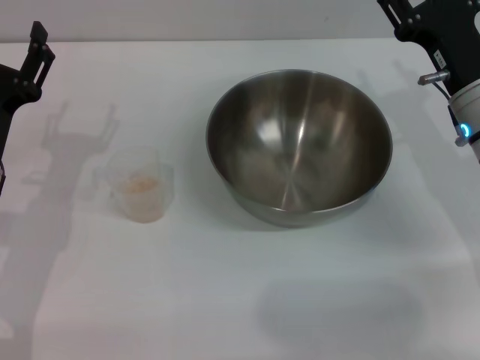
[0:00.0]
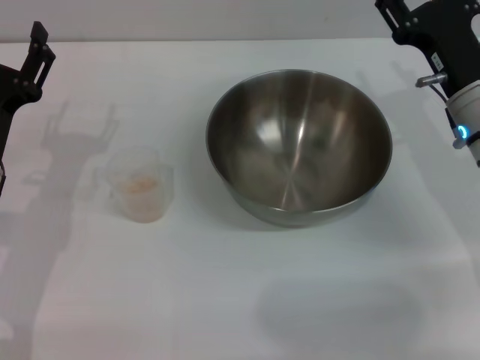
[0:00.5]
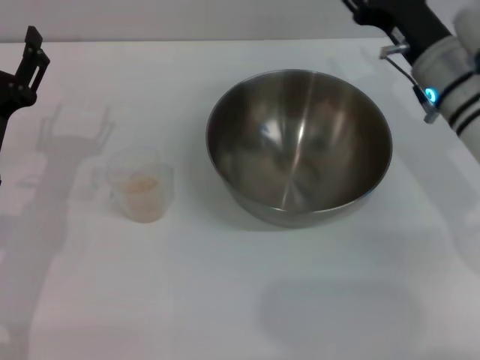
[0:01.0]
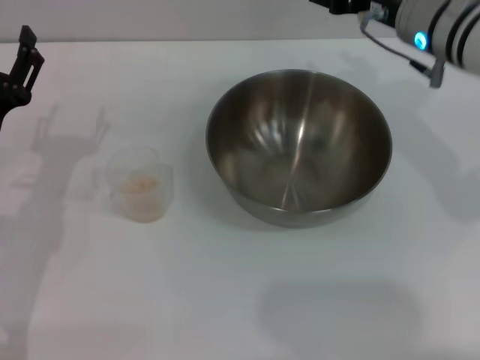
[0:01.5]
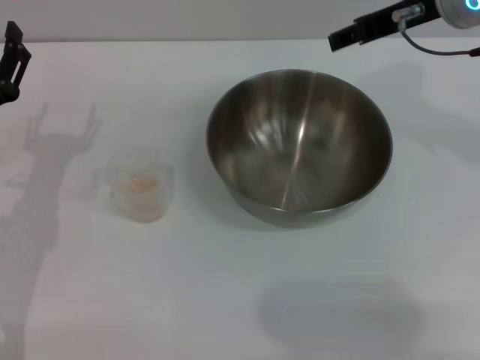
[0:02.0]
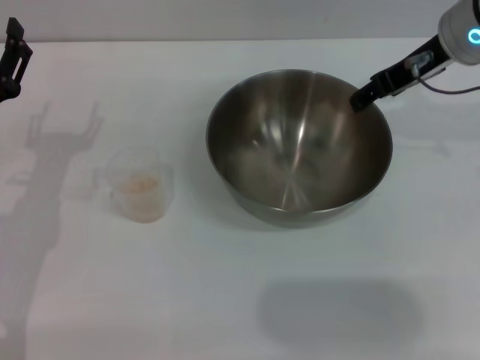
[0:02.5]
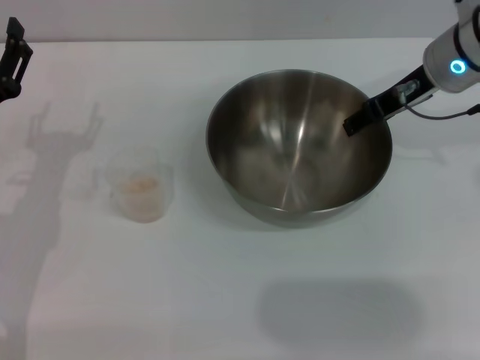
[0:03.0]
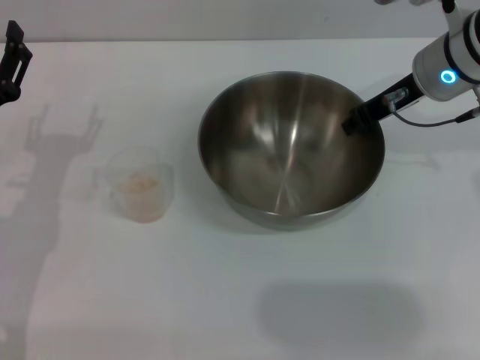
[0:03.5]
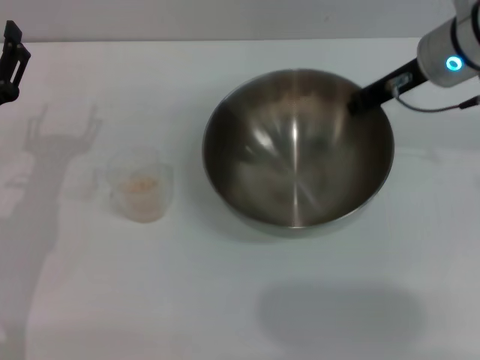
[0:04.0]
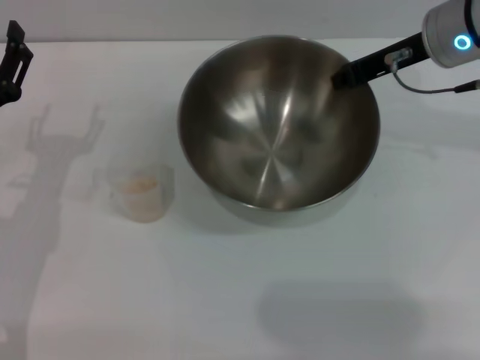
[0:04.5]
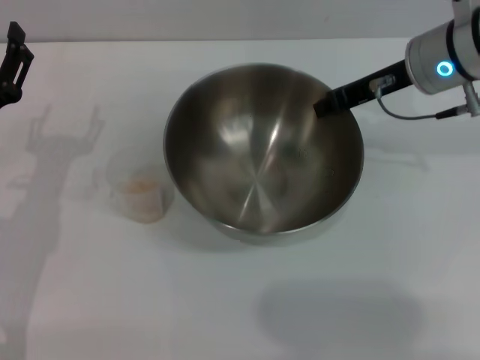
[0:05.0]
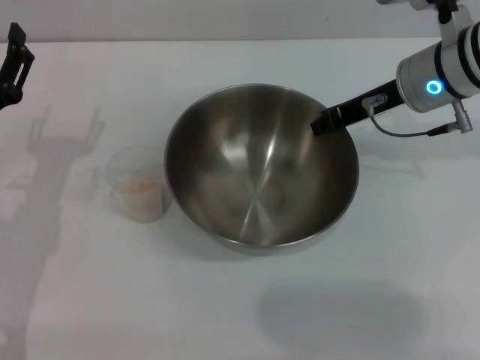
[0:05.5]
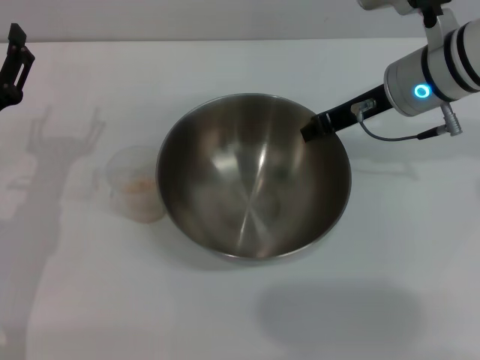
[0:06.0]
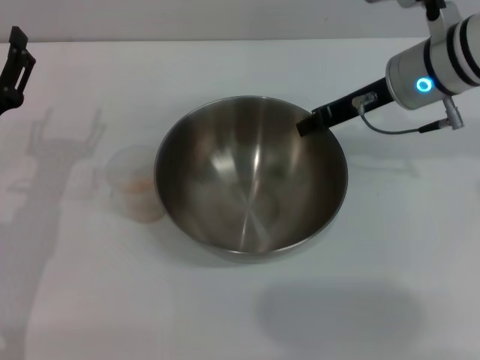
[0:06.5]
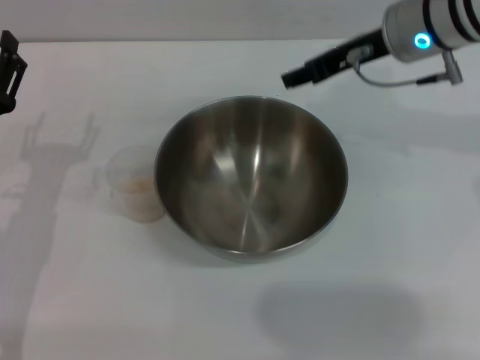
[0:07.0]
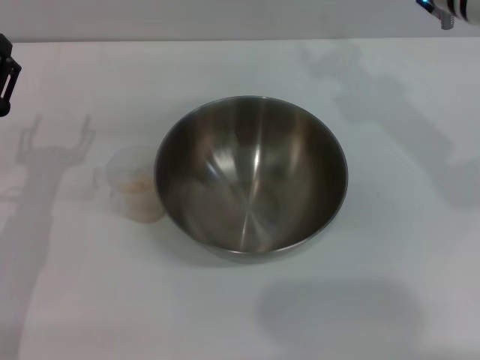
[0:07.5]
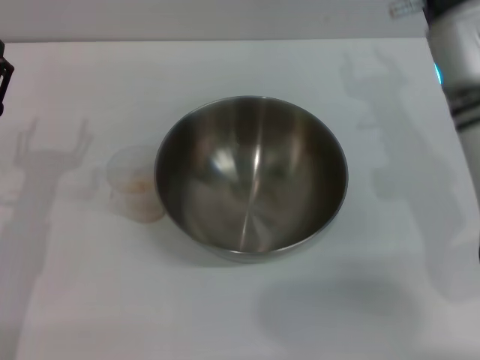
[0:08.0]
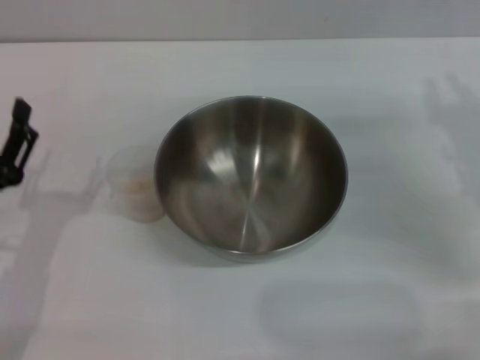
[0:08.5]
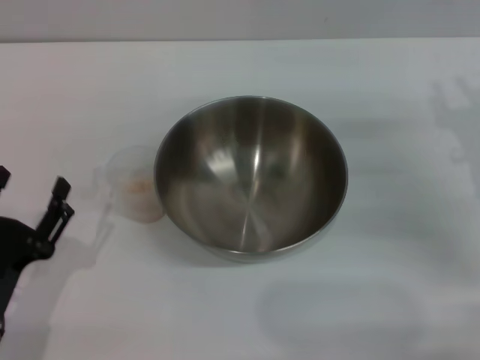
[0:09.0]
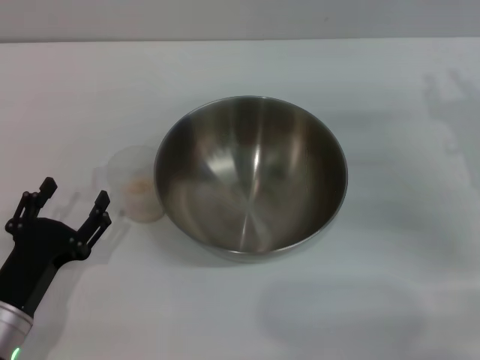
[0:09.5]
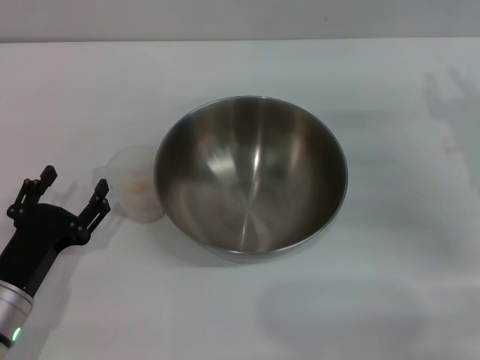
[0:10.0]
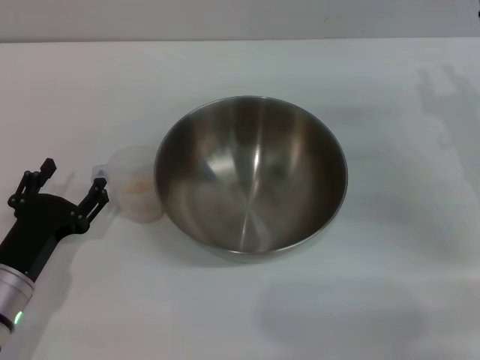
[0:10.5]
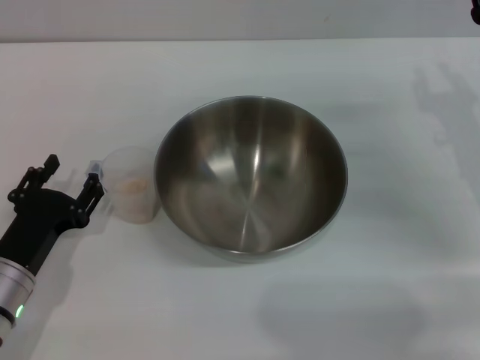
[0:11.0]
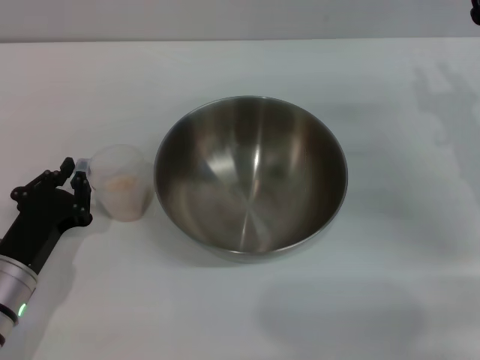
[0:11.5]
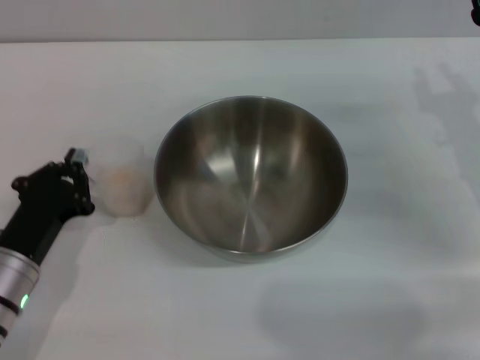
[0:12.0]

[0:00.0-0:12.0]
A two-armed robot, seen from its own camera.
Task of the whole recording: Place the bowl in the middle of the table with one hand and pour the rice from the grain cup into it with the other hand.
Step, 0:00.0 to 0:04.5: Pick up the bowl with the right gripper.
Step, 0:05.0 to 0:07.0: Place the bowl in the center of view with the right gripper.
0:00.0 to 0:02.0: The right gripper moves upward, approximately 15 cm.
0:02.0 to 0:04.0: The right gripper moves downward, roughly 5 cm, and closes up.
0:06.0 to 0:08.0: The right gripper moves backward, approximately 5 cm, and opens its fingers.
0:08.0 to 0:10.0: The left gripper heads downward and backward, covering about 10 cm. Meanwhile the right gripper heads to the right and downward, covering approximately 15 cm.
0:10.0 to 0:12.0: The left gripper closes its fingers.

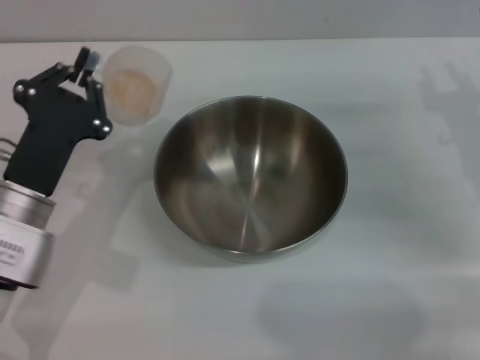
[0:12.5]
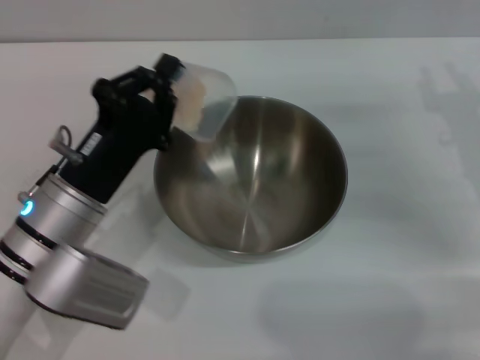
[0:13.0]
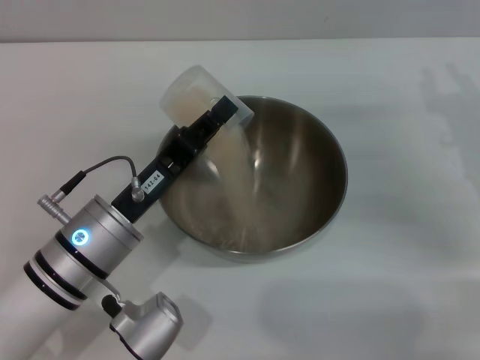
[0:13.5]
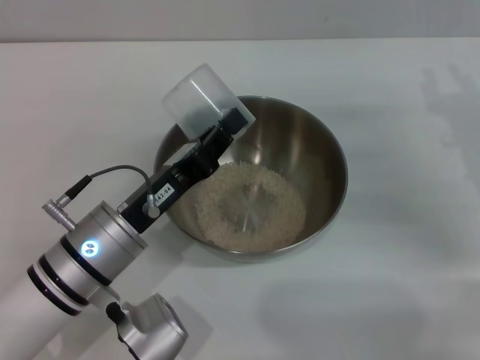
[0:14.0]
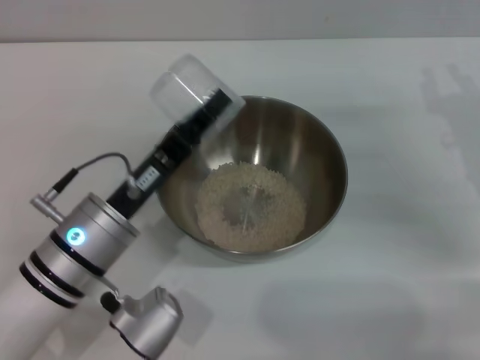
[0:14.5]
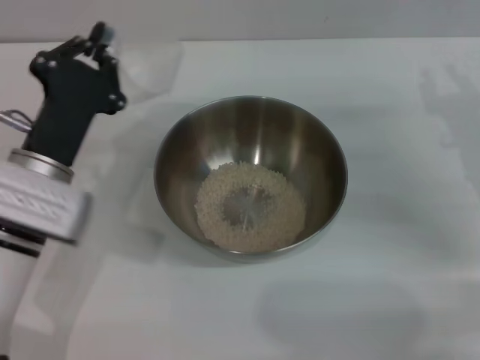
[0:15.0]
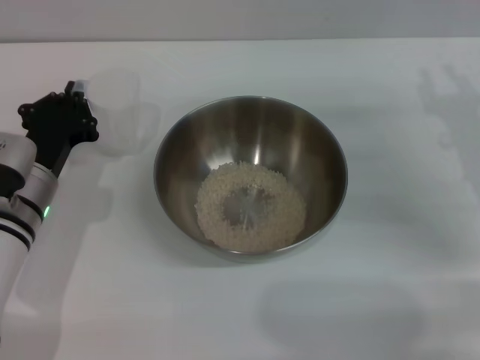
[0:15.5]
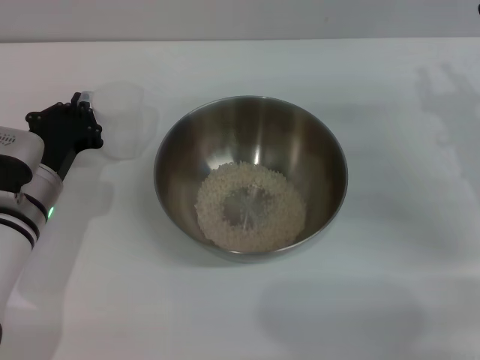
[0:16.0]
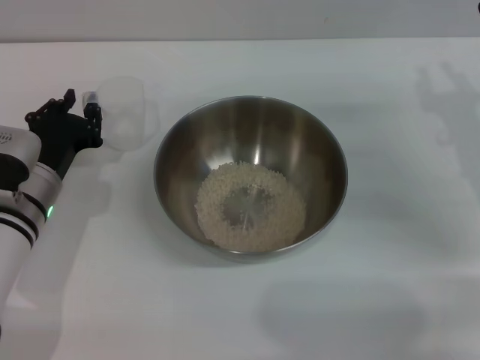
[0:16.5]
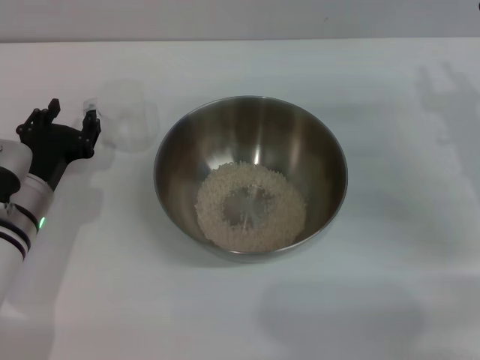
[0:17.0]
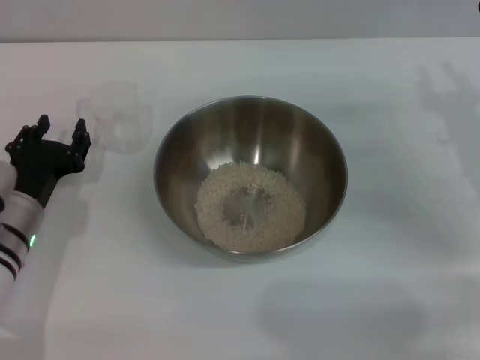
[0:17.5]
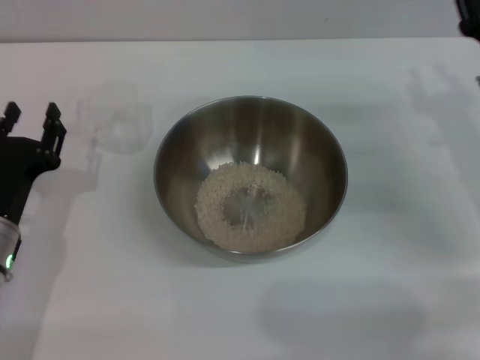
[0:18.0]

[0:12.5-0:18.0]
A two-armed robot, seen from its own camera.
Task of the whole recording: Place the bowl in the middle of the table with one hand and pour the rice from the grain cup into it with the other hand.
Step, 0:13.0 to 0:14.5: Pour the rice from the cup into the bowl with the left gripper.
Step, 0:15.5 to 0:17.5: Place the cup on the table with the left gripper.
0:12.5 to 0:14.5: The left gripper goes roughly 5 cm to the right.
0:14.5 to 0:16.0: The left gripper moves to the left and forward, roughly 10 cm.
0:16.0 to 0:18.0: The left gripper heads backward, covering some 5 cm, and opens its fingers.
